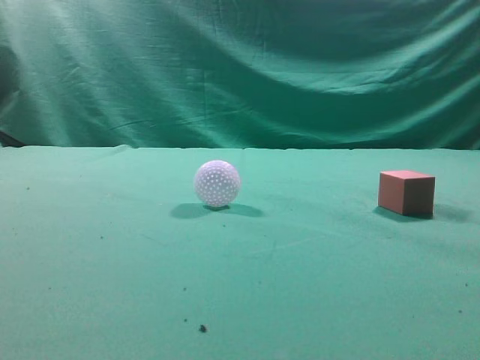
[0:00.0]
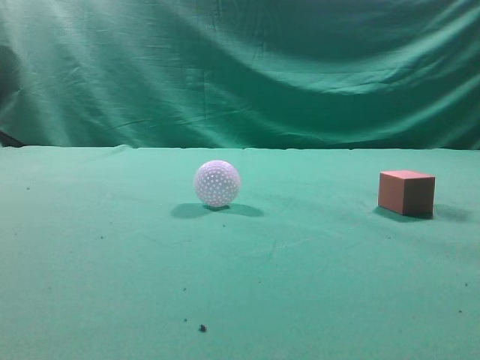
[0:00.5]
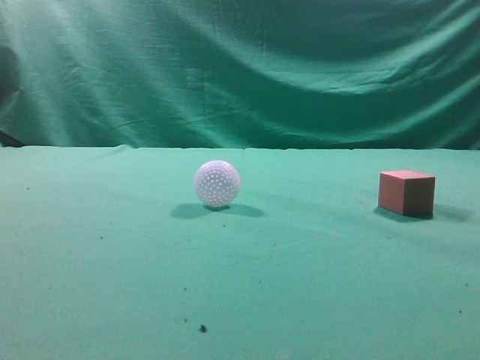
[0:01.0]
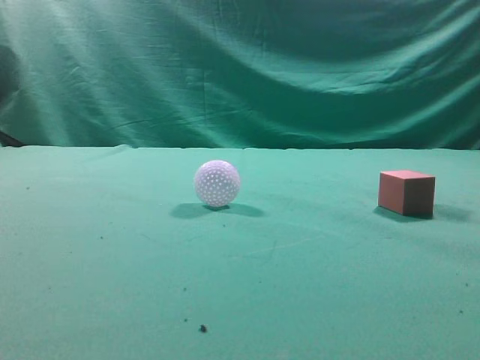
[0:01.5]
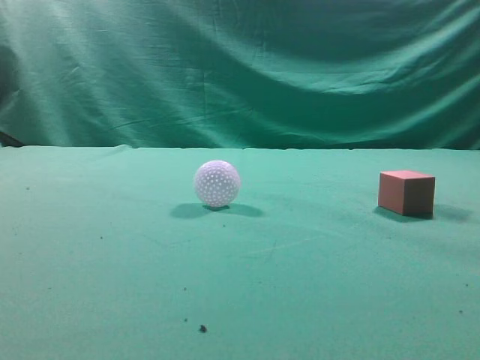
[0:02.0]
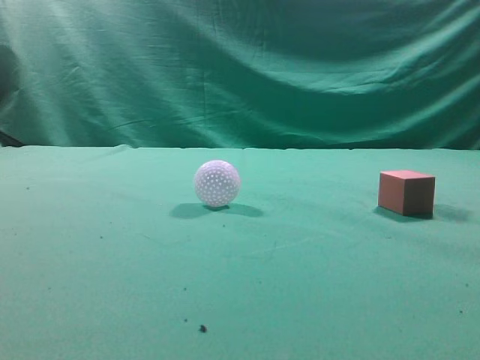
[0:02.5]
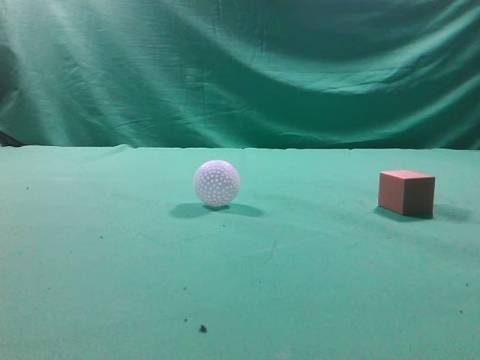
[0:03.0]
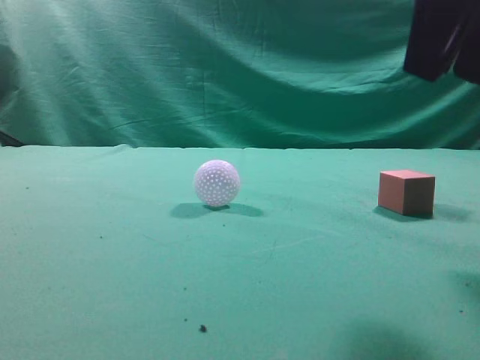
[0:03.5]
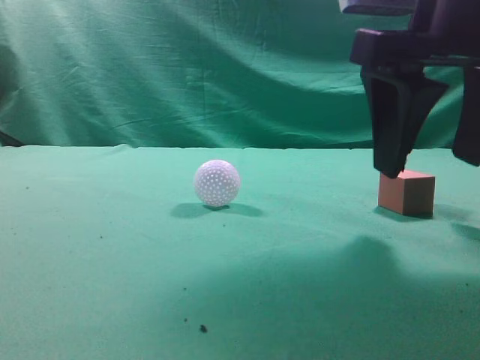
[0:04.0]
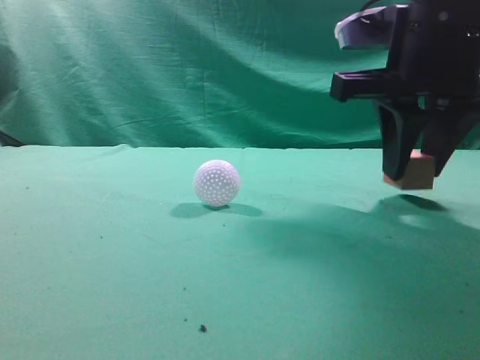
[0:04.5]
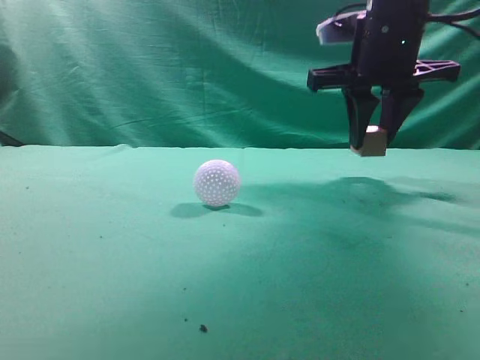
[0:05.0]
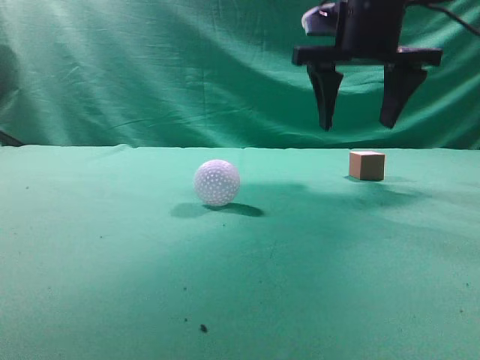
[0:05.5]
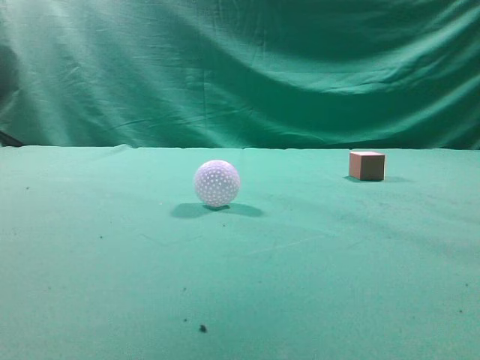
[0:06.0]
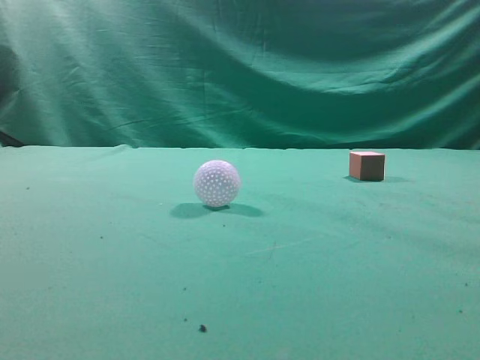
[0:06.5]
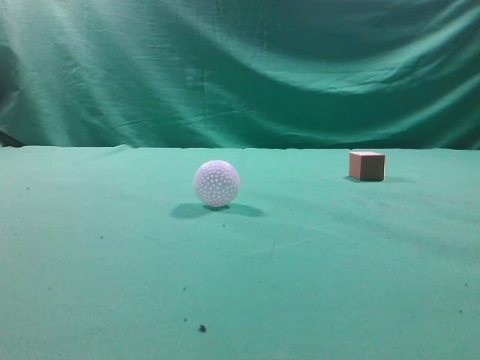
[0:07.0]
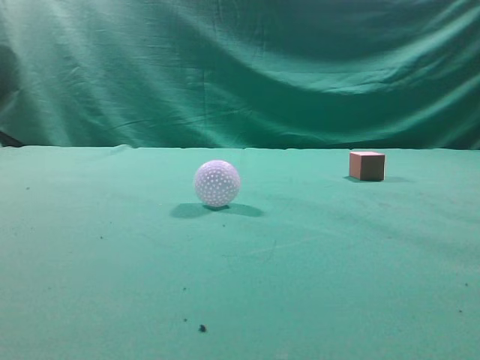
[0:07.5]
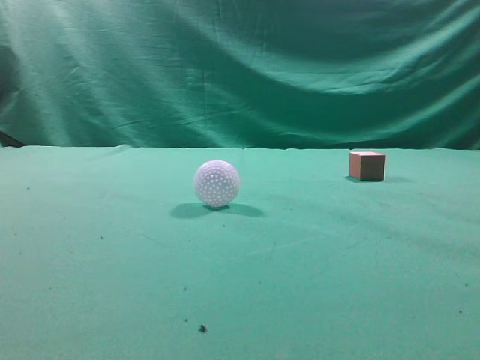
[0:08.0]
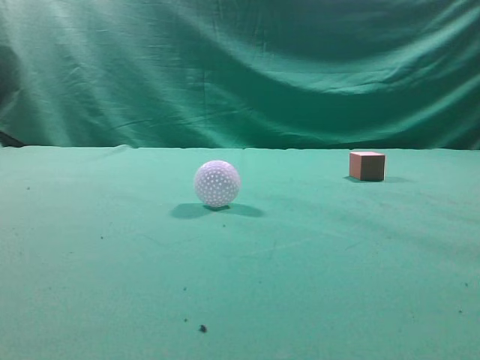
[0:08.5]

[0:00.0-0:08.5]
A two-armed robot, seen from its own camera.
Task of the whole recording: pick up the cube block and place it in another position on the table.
Step, 0:00.0 to 0:04.5: Pick up the small cube.
0:02.0 to 0:04.0: The right gripper travels forward, to the left and downward by some 25 cm, and opens its fingers.
0:04.0 to 0:06.5: The right gripper heads upward and backward, covering some 20 cm, and closes its fingers.
